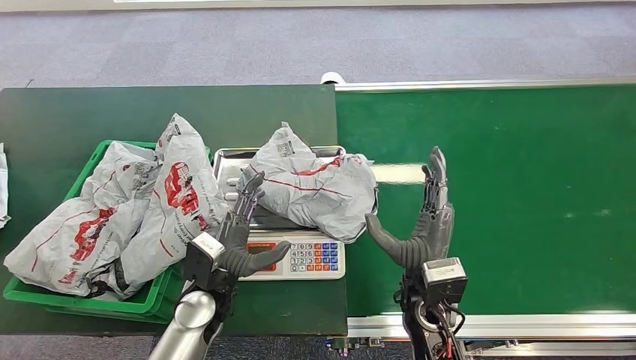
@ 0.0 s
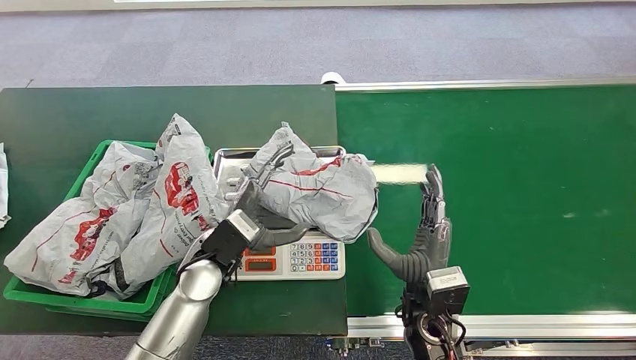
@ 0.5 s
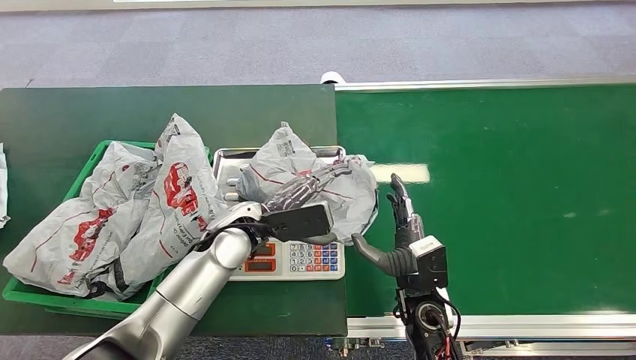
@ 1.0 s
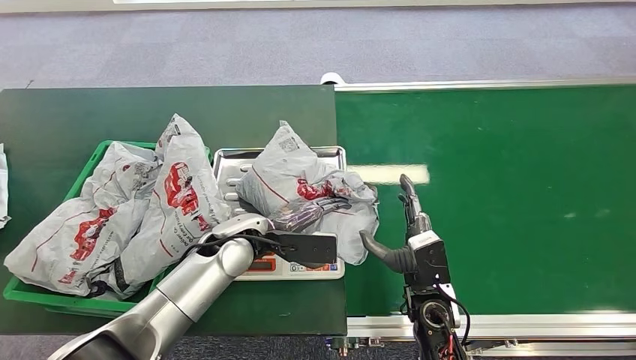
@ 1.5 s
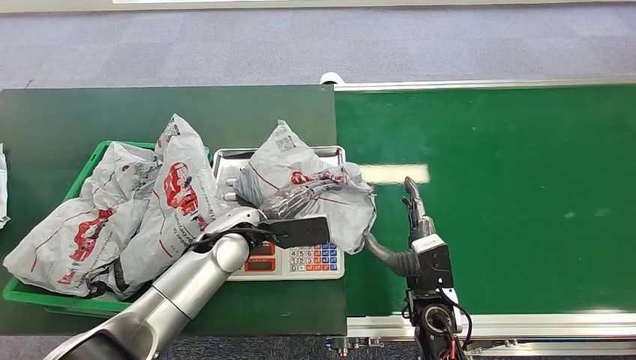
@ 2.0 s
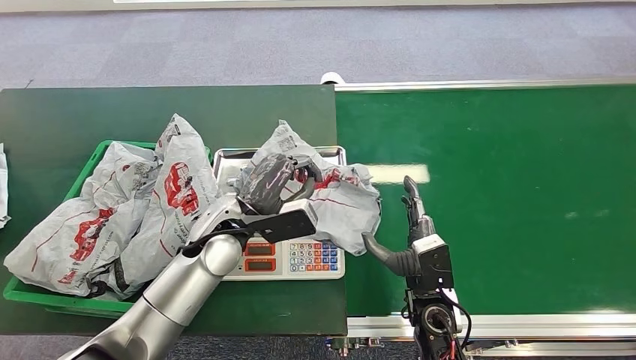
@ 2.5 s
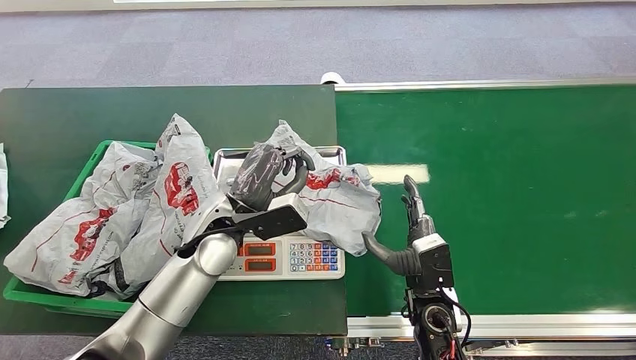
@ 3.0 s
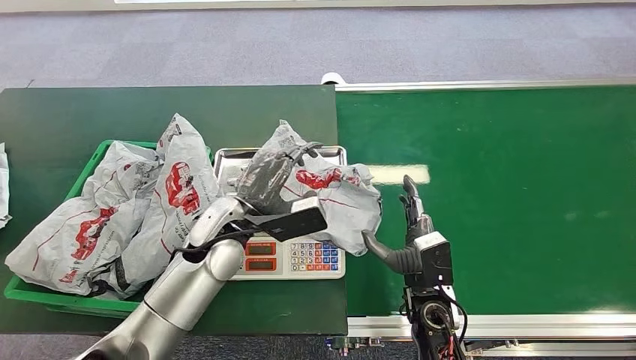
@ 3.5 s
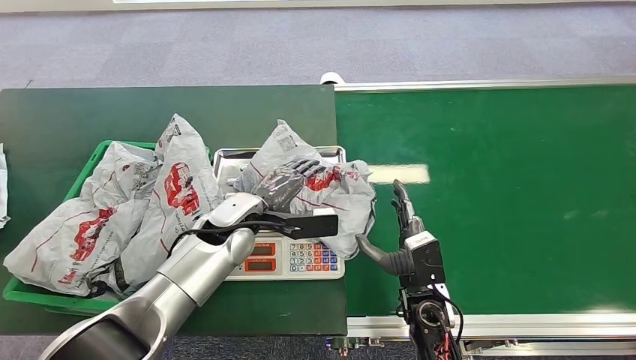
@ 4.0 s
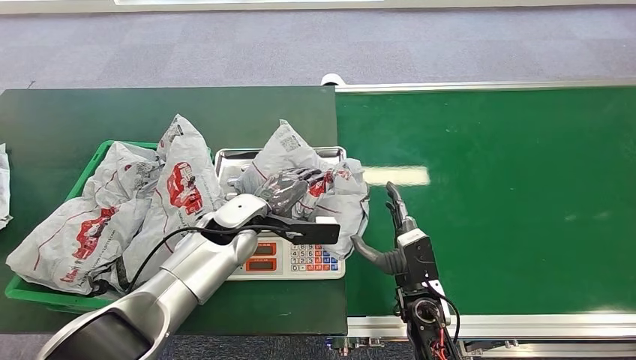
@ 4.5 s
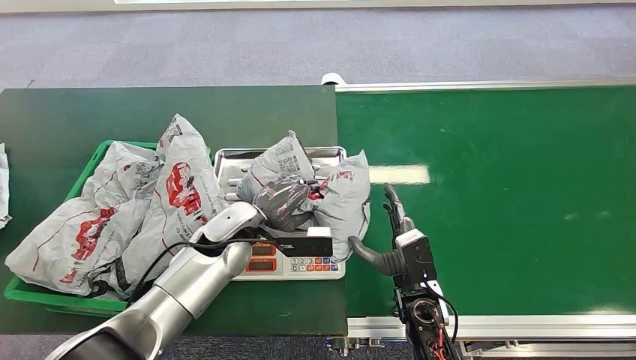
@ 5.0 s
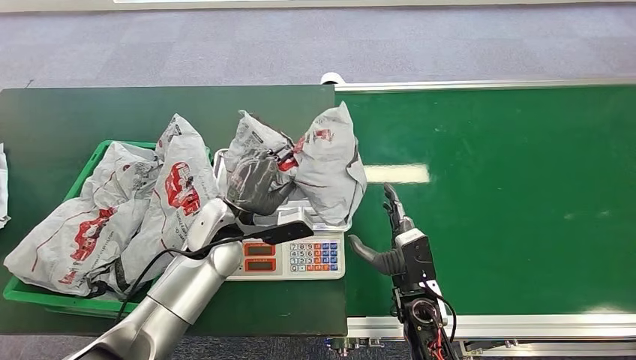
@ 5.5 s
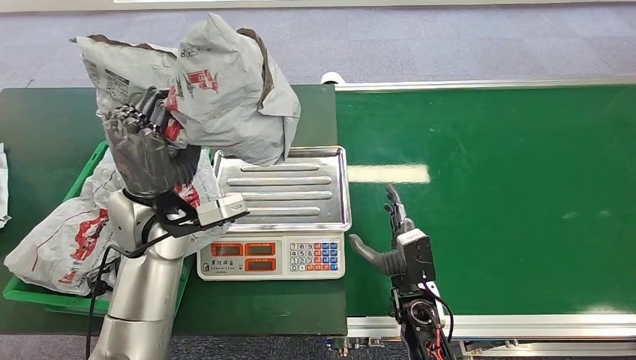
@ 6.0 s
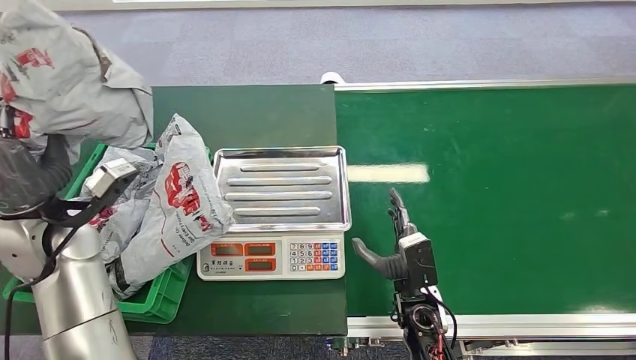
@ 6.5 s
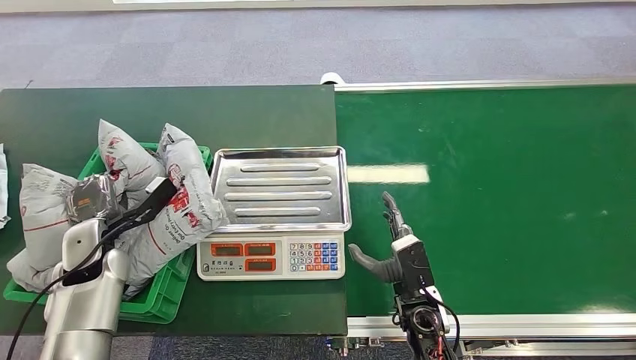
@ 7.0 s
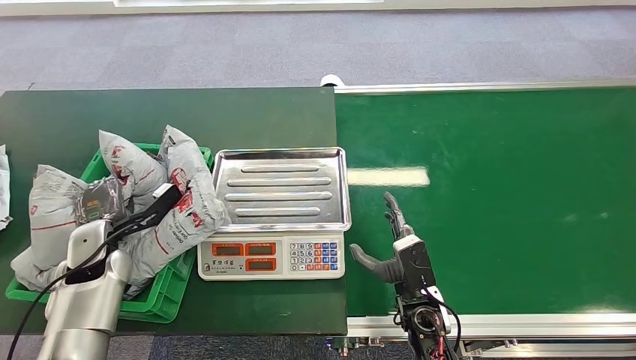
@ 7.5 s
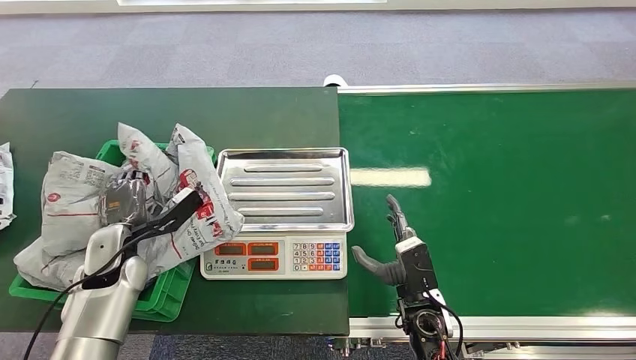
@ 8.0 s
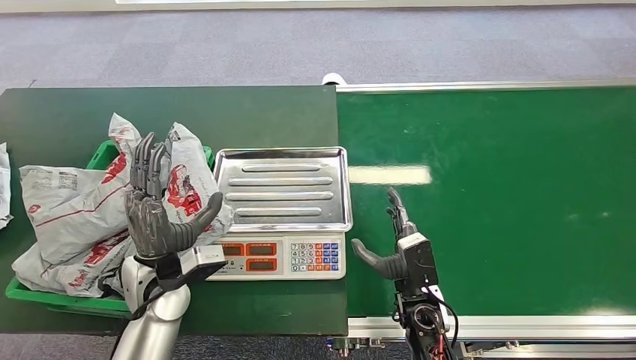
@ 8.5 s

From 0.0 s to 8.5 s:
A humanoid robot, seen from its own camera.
Step, from 1.0 s to 6.0 s: Pick up the package from the inbound machine.
Step, from 7.0 s to 8.5 s: Place the package into the parcel locker.
From 0.0 s to 2.0 s: The right hand travels downward by about 5 cm. The left hand shifts approximately 10 cm forward and upward.
